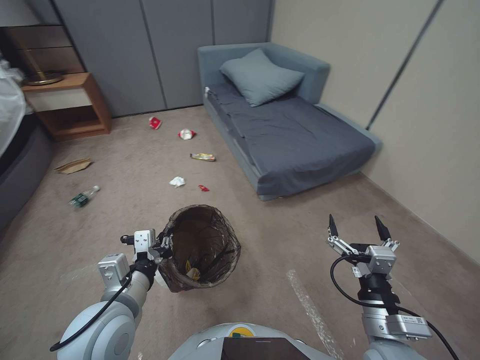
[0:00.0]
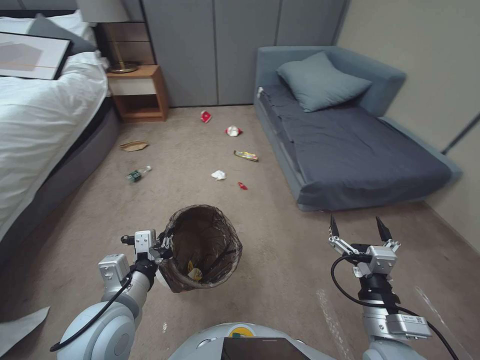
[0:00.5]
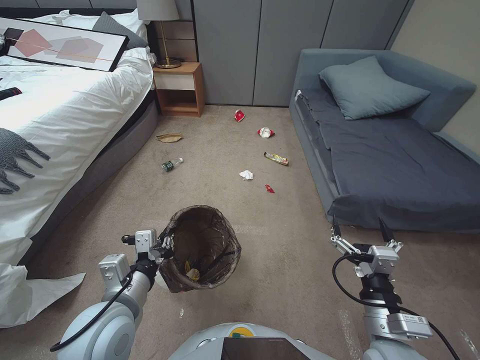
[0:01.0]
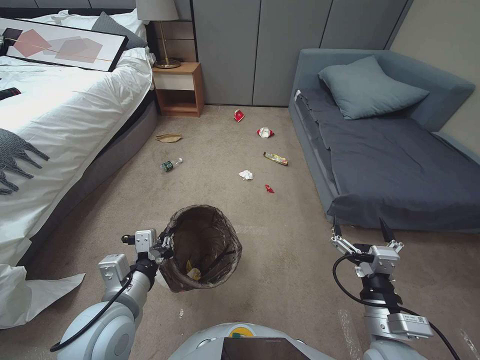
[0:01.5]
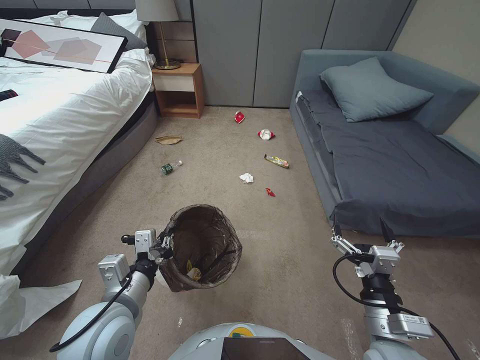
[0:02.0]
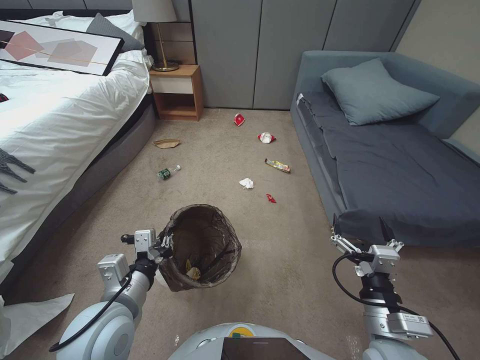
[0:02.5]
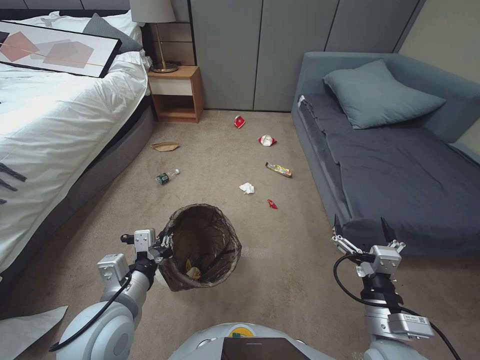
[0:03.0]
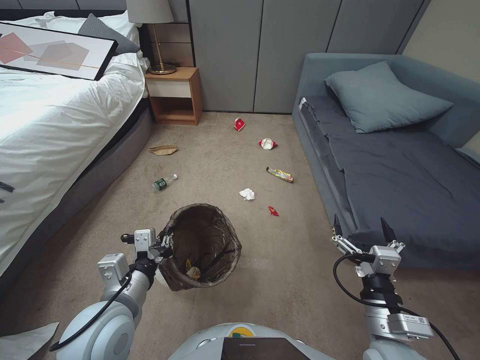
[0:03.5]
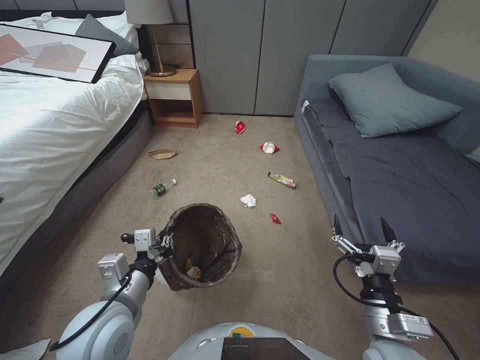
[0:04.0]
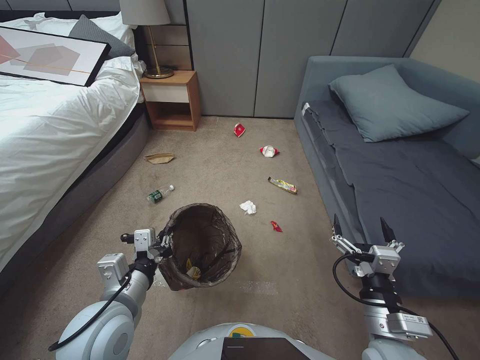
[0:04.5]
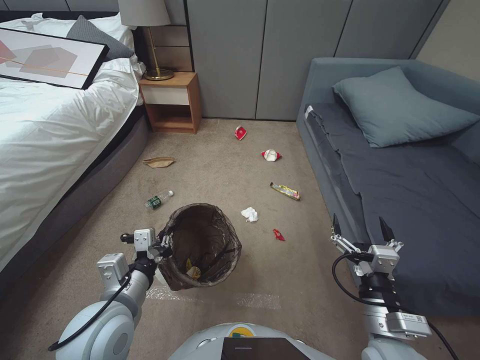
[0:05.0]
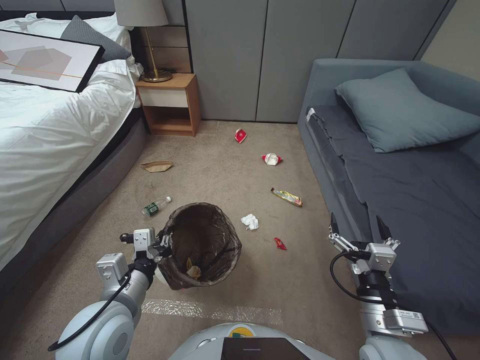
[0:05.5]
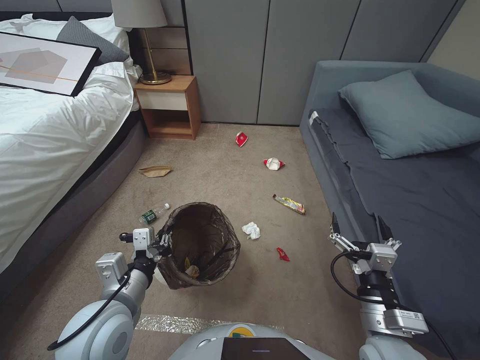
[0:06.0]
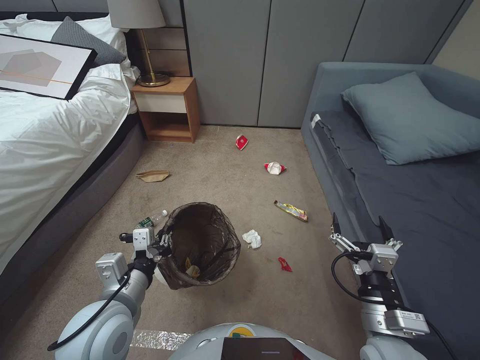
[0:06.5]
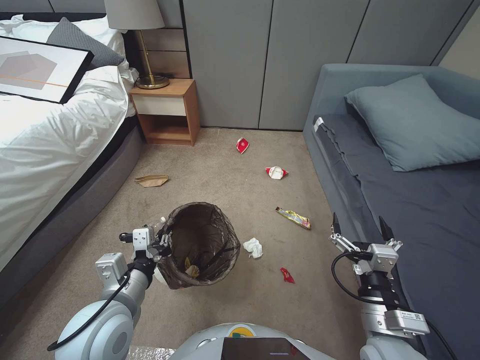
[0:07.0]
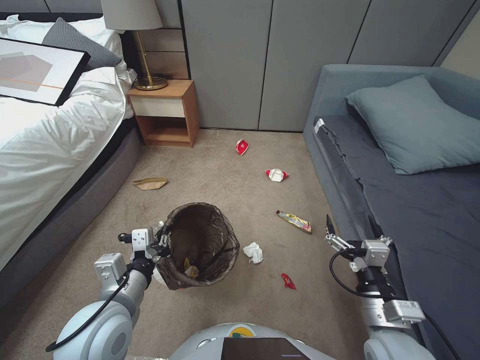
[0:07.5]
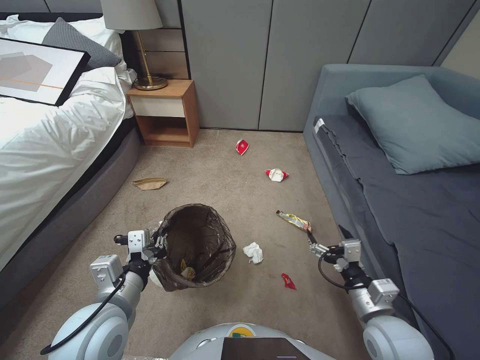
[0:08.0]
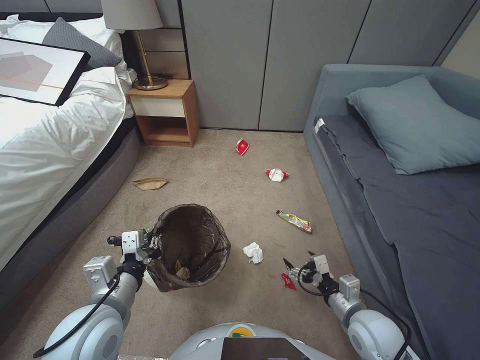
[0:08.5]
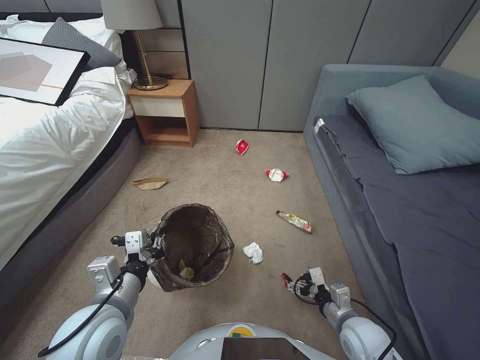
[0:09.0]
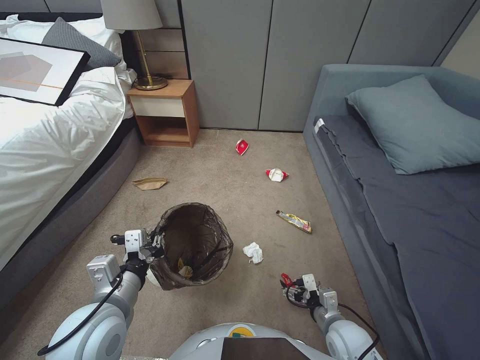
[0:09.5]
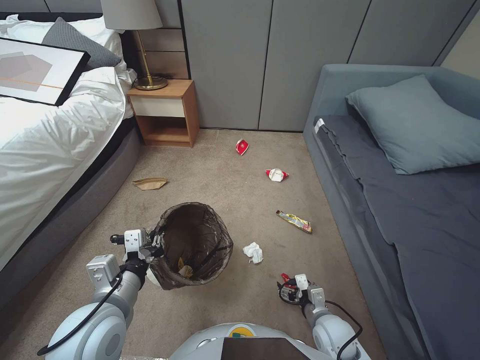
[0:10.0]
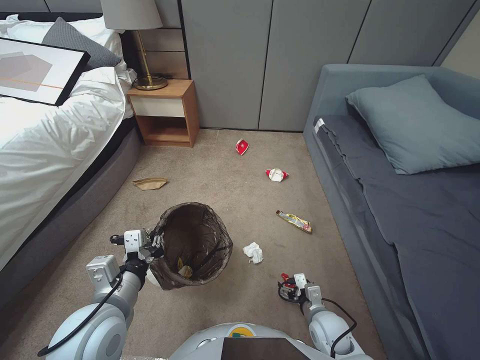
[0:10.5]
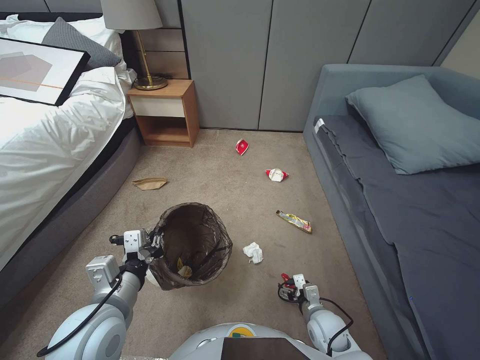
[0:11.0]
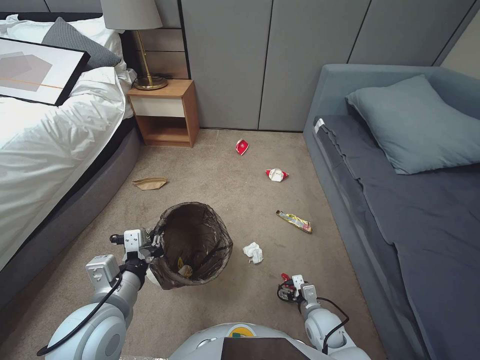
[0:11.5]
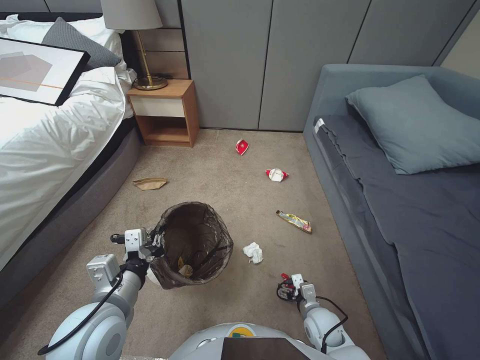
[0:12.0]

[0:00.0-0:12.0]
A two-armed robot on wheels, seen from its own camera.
Task of the whole recording: Pick up the trash bin, then pick up the garbage from the floor and place it into the trash bin.
0:06.0 to 0:08.0: The right gripper changes place by approximately 5 cm.
0:08.0 to 0:10.0: The right gripper shifts approximately 15 cm downward.
0:10.0 to 0:12.0: The right gripper travels downward by some 5 cm.

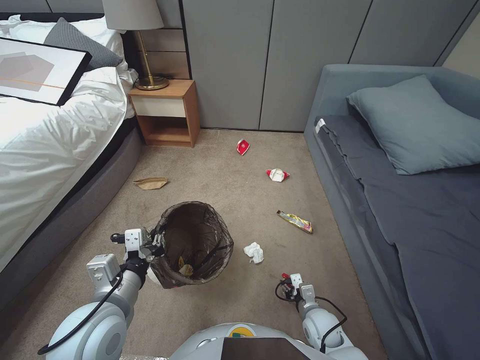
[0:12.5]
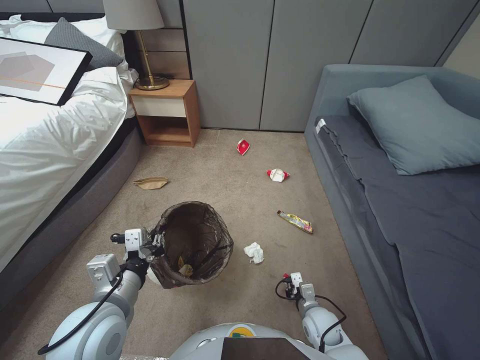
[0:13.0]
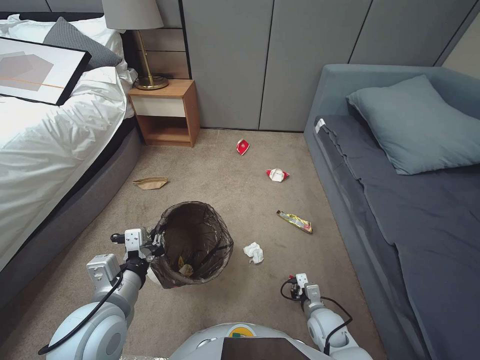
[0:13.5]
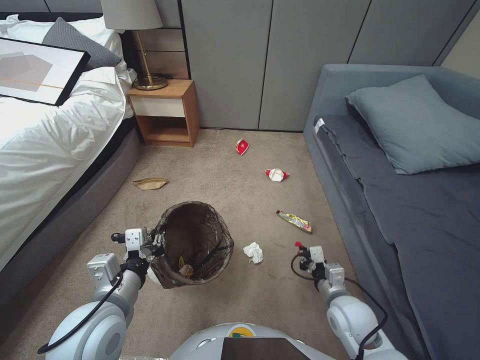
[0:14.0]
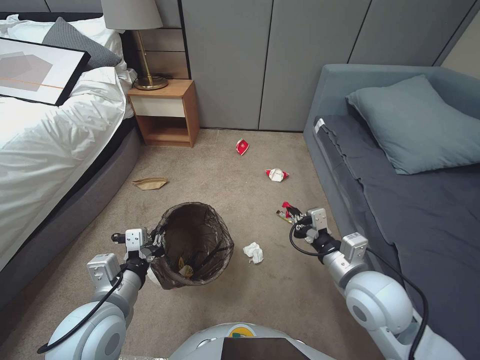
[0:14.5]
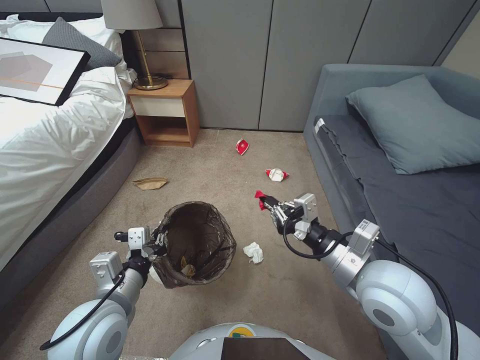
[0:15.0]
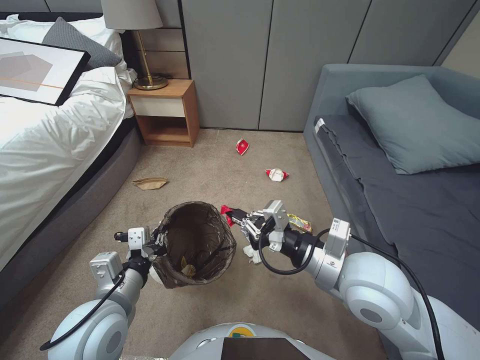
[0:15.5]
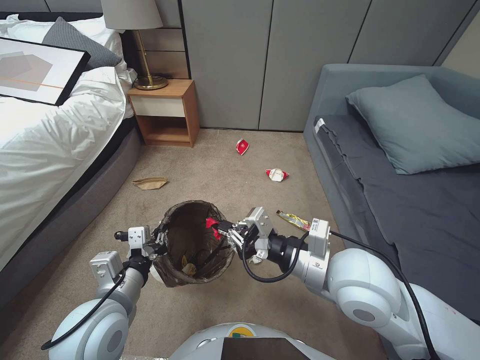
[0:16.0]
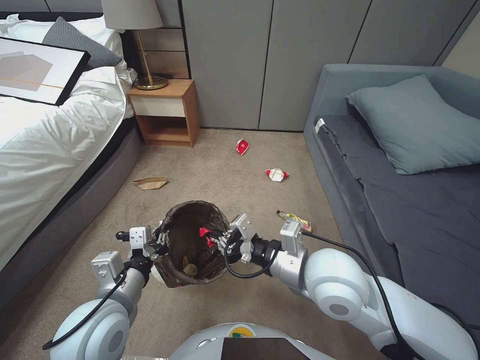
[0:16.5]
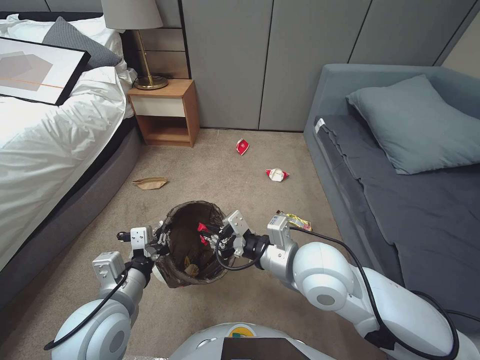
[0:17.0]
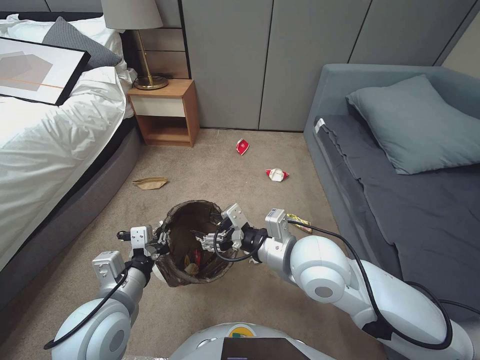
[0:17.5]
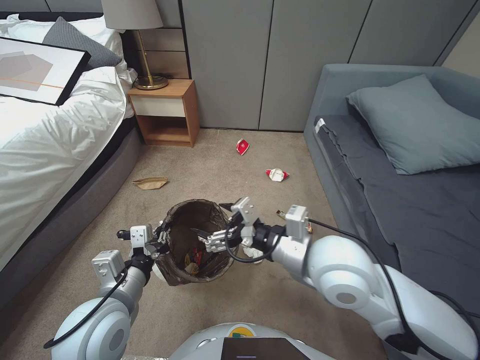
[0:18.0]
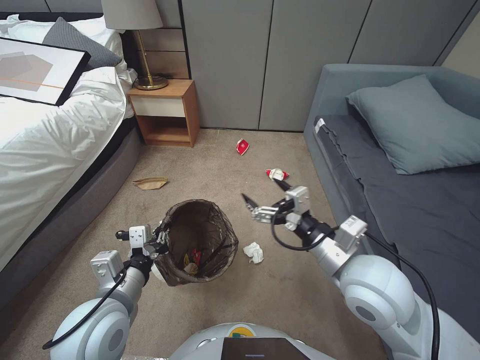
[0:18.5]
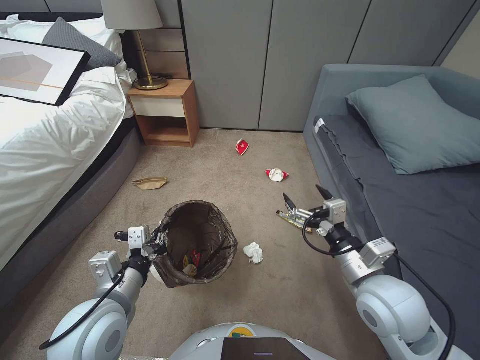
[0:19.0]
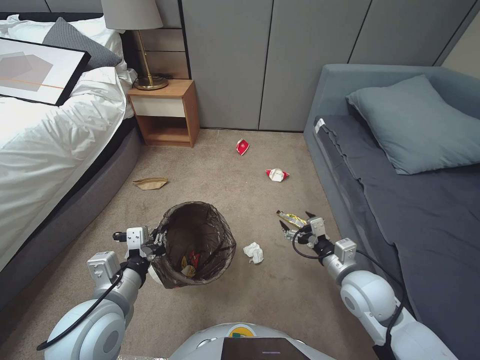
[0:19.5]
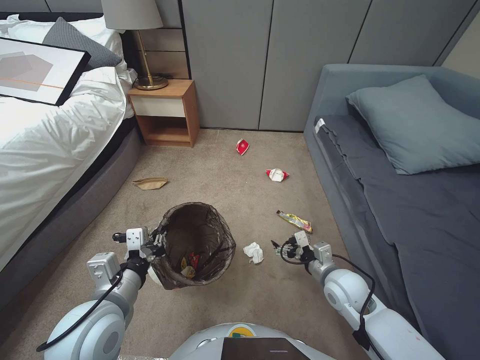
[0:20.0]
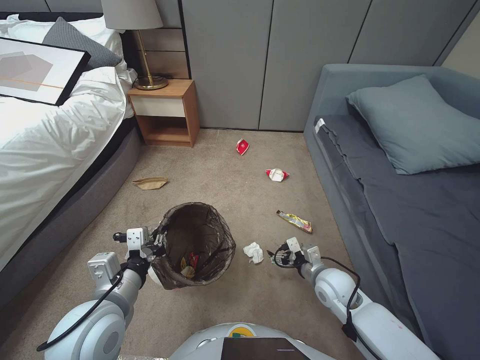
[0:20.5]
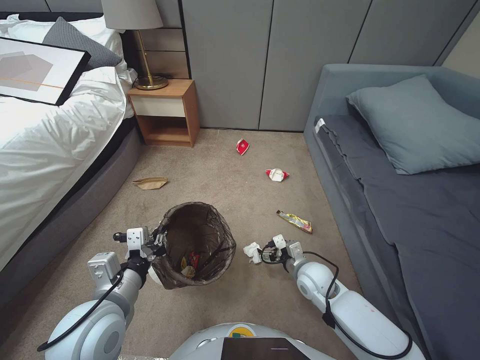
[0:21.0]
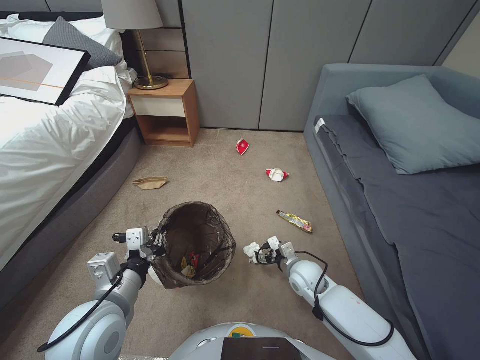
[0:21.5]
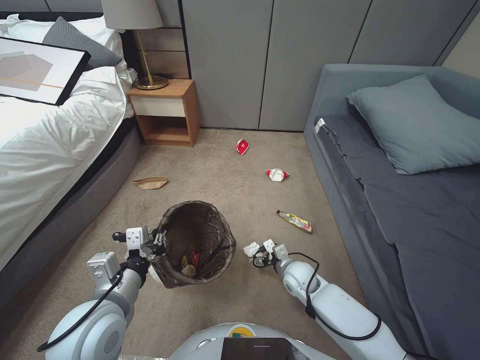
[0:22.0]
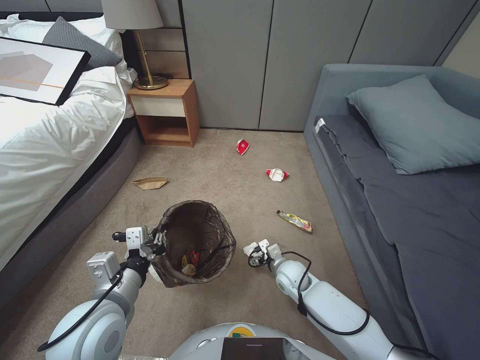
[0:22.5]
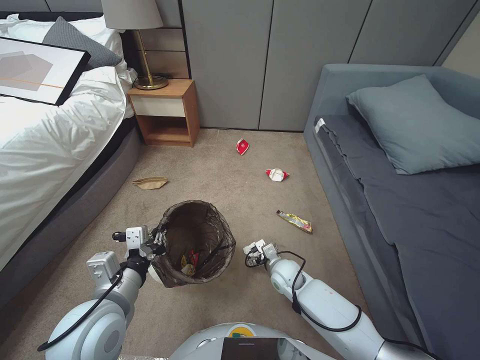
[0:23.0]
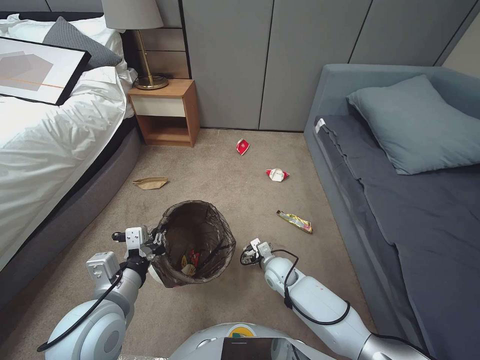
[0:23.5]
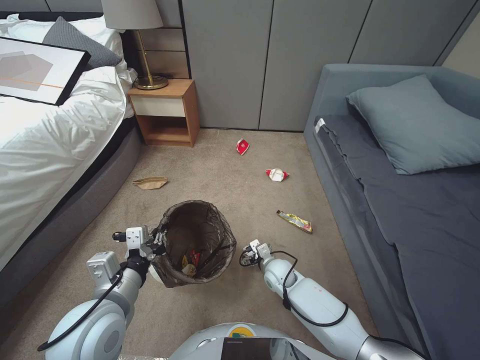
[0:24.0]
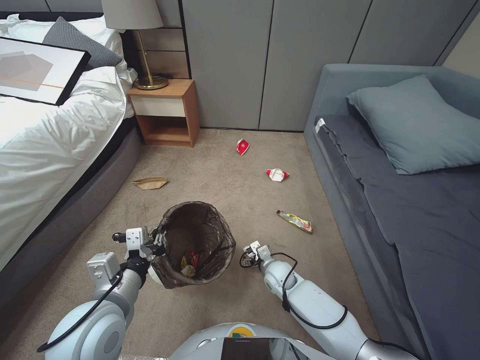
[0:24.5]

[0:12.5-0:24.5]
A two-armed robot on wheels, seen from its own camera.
Task of the whole recording: Pick up the trash bin, then pick up the garbage from the floor and place it into the trash bin.
0:12.5 to 0:14.5: The right gripper is displaced upward by about 25 cm, and closes its fingers.
0:14.5 to 0:16.5: The right gripper shifts approximately 15 cm to the left and upward.
0:16.5 to 0:18.5: The right gripper opens its fingers.
0:18.5 to 0:20.5: The right gripper shifts some 25 cm downward.
0:20.5 to 0:22.5: The right gripper travels to the left and downward by roughly 10 cm.
0:22.5 to 0:24.5: The right gripper changes place by approximately 5 cm.

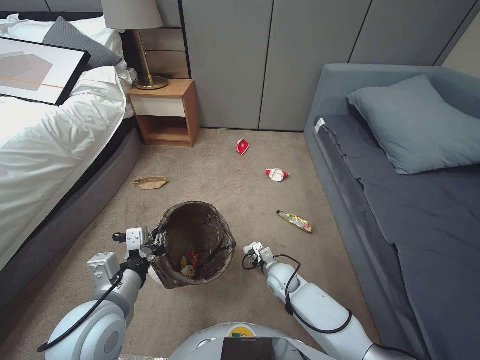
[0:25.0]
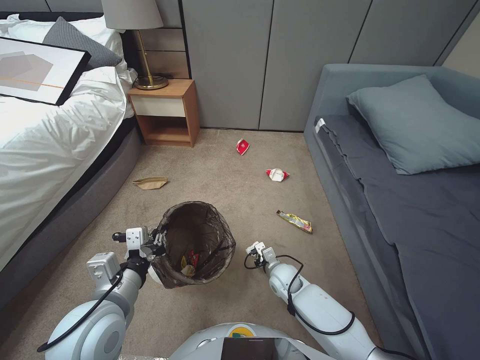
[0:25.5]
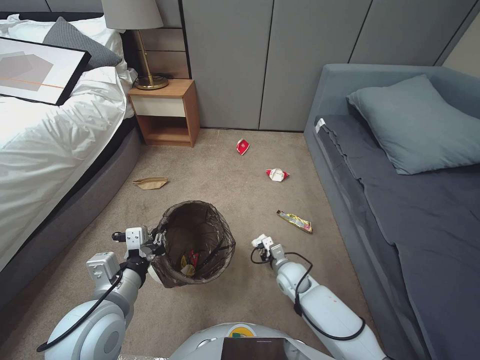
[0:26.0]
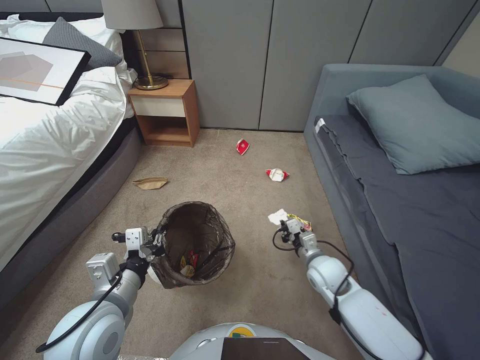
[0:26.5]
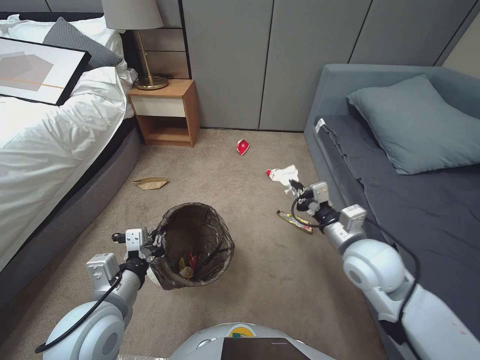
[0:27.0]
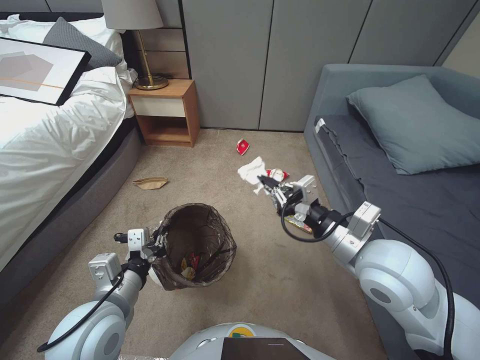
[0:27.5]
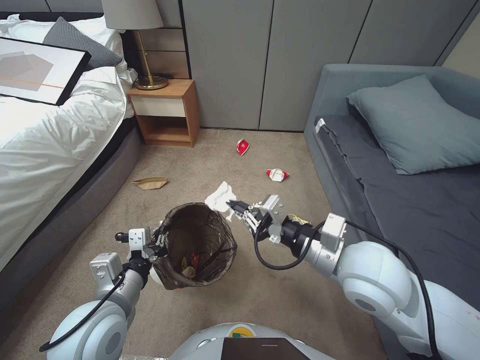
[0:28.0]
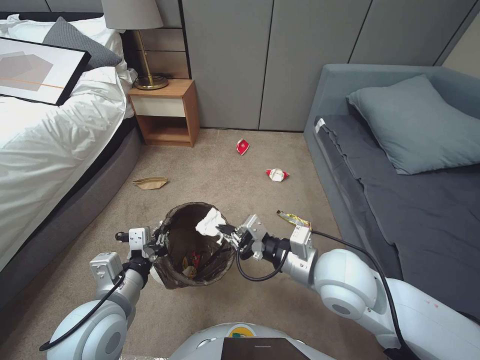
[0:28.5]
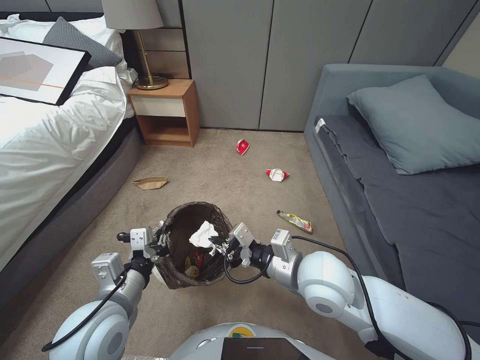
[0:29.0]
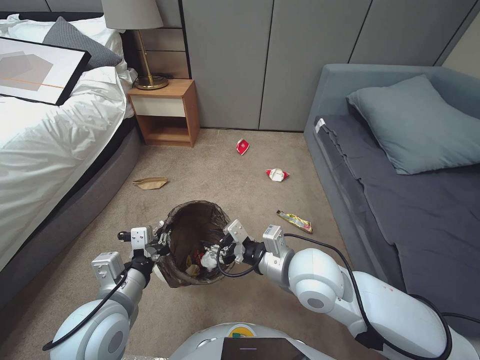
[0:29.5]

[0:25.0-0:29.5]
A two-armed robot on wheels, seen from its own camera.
Task of the whole recording: Pick up the trash bin, then pick up the garbage from the floor and place it into the trash bin.
0:25.0 to 0:27.0: The right gripper moves upward and to the right, some 30 cm, and closes up.
0:27.0 to 0:29.5: The right gripper shifts some 10 cm to the left, and opens up.
